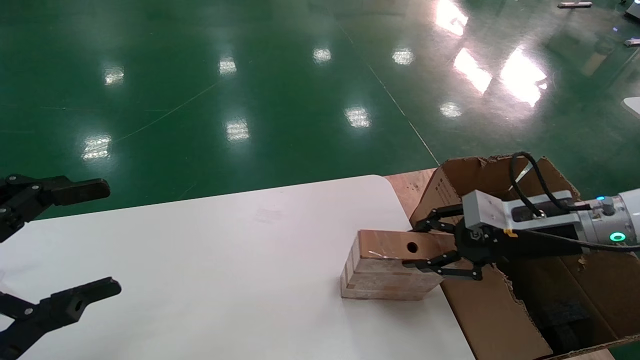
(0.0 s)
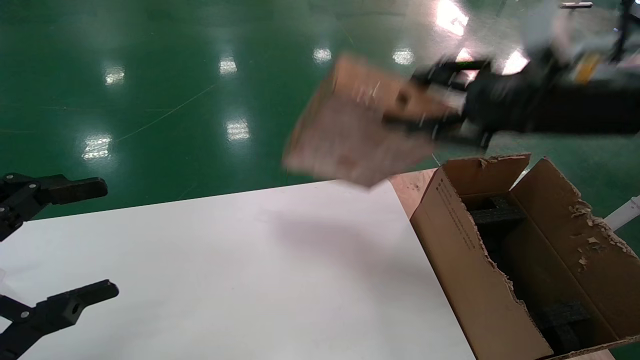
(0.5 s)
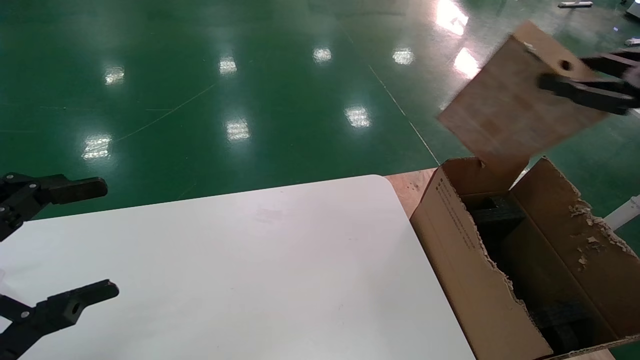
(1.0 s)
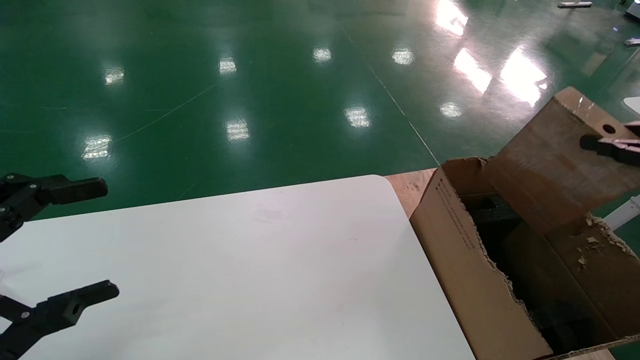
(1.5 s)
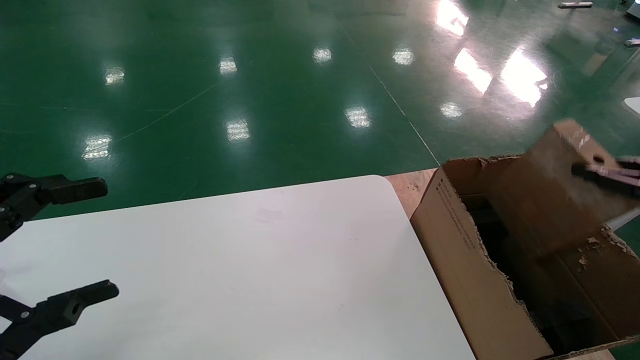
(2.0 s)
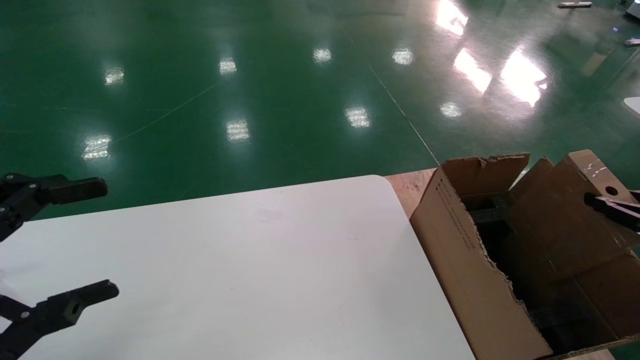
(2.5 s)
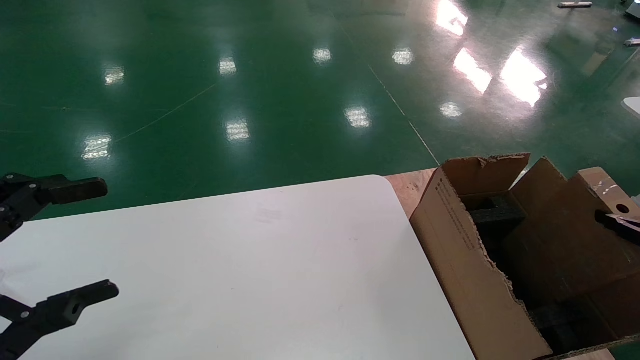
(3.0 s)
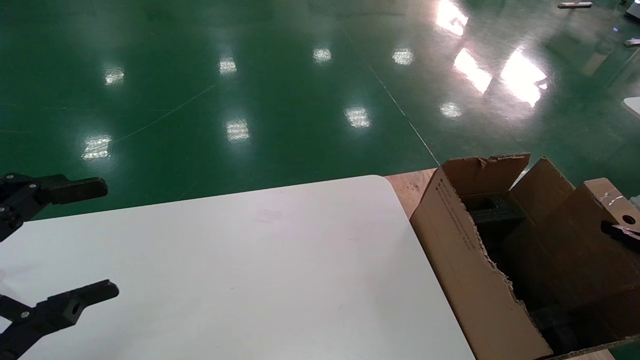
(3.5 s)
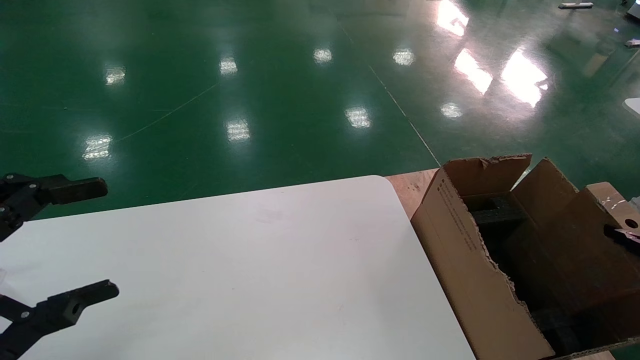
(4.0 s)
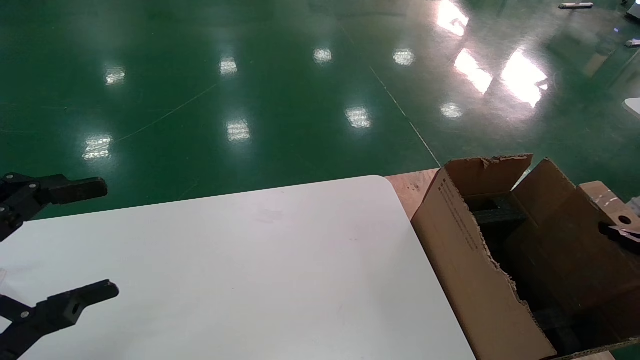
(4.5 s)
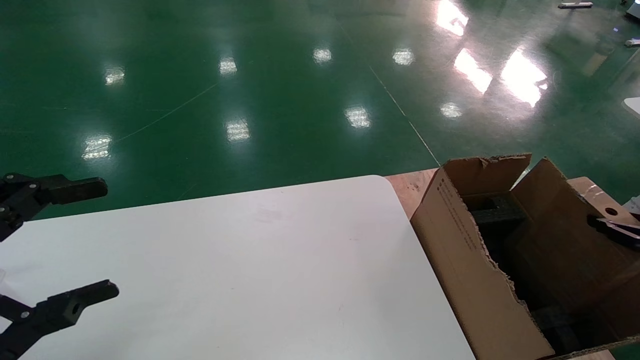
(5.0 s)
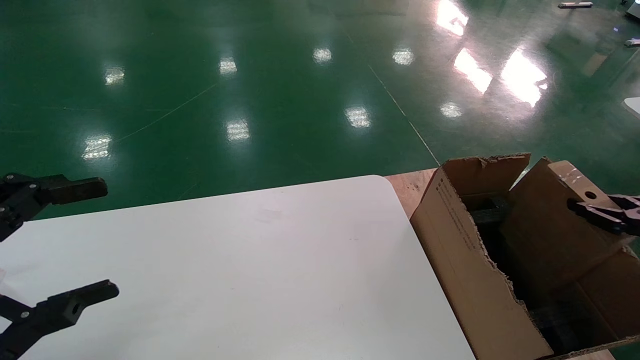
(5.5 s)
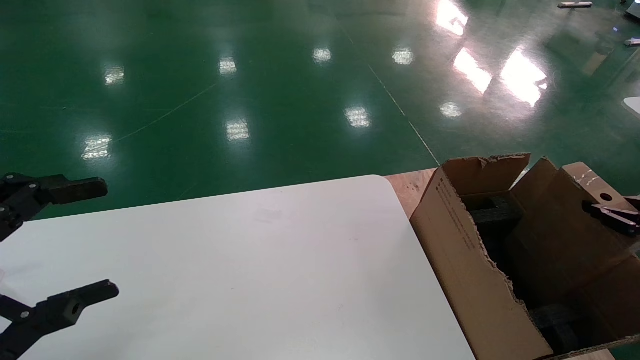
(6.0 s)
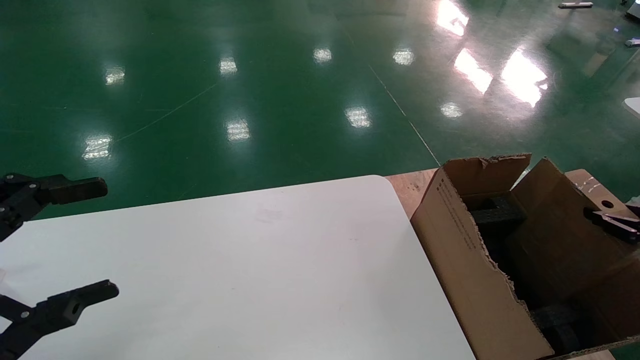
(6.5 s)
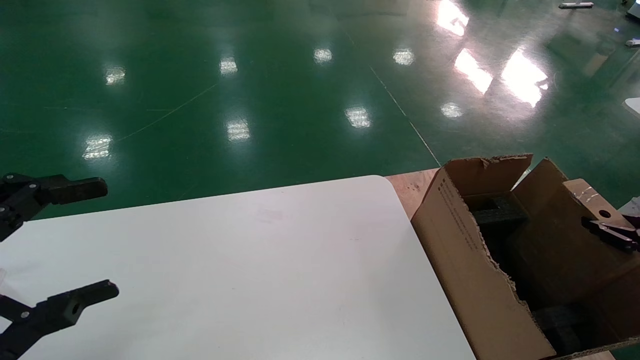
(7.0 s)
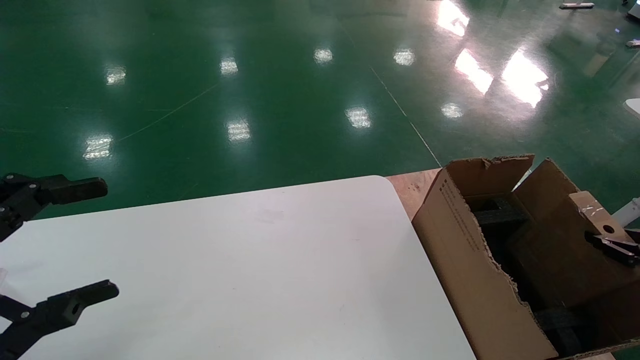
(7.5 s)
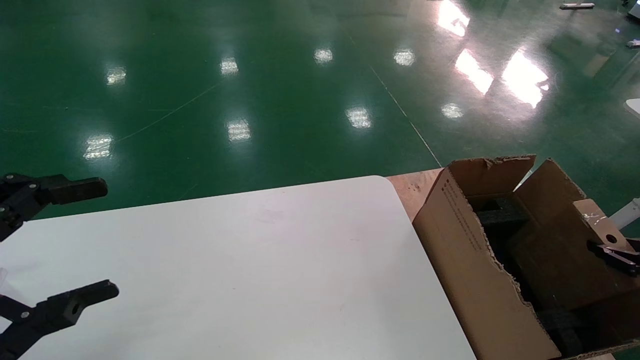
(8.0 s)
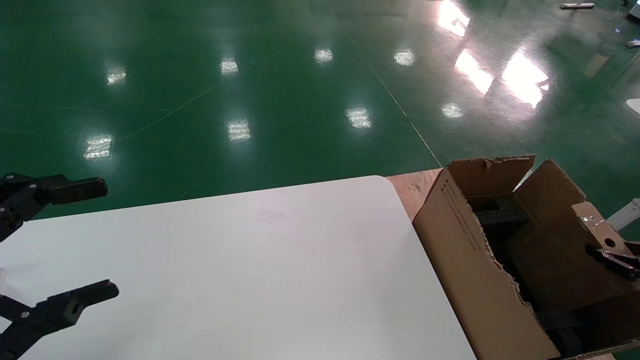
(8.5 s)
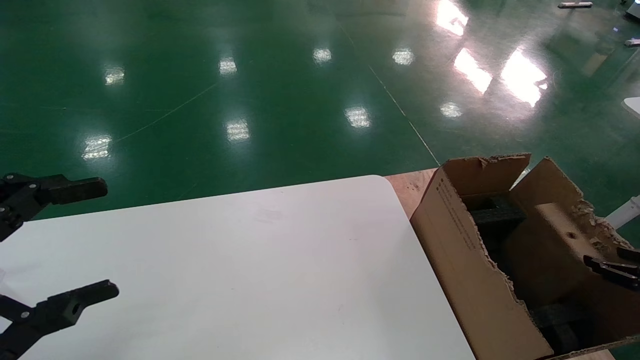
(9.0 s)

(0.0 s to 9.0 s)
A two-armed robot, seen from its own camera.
Task of the whole recording: put the box on the table into the big box.
0.0 s - 2.0 s: The right gripper goes some 20 cm to the right and backward.
2.0 s - 4.5 s: The right gripper moves downward, approximately 10 cm.
7.0 s - 9.0 s: The grippers move only a little.

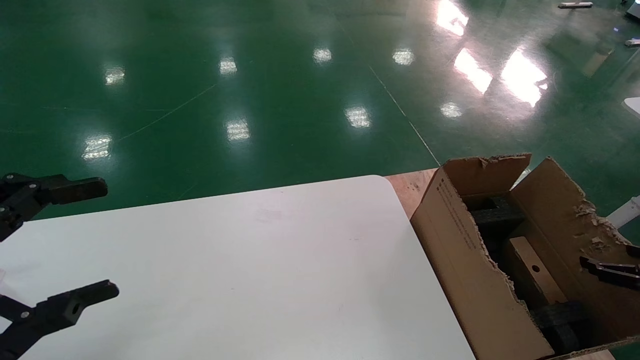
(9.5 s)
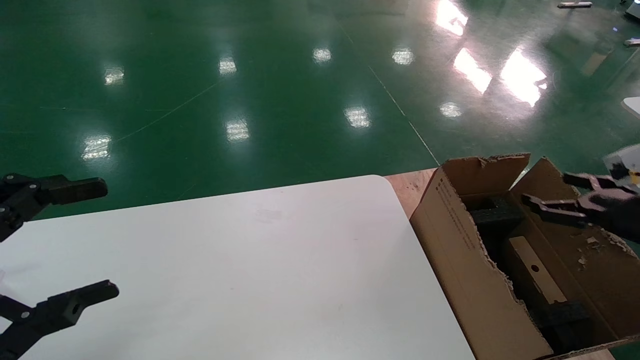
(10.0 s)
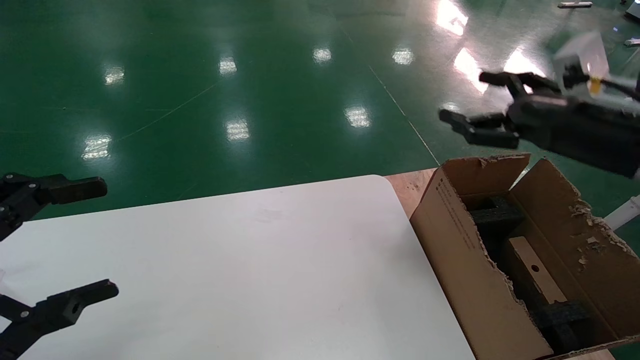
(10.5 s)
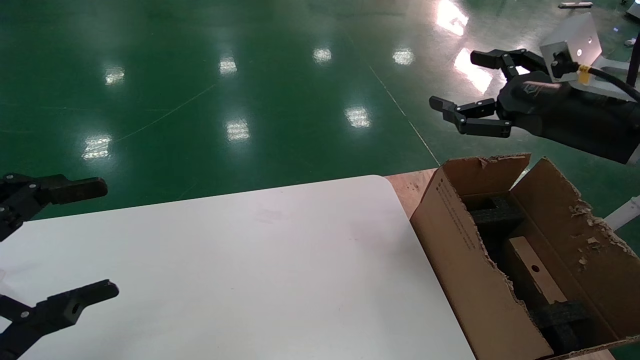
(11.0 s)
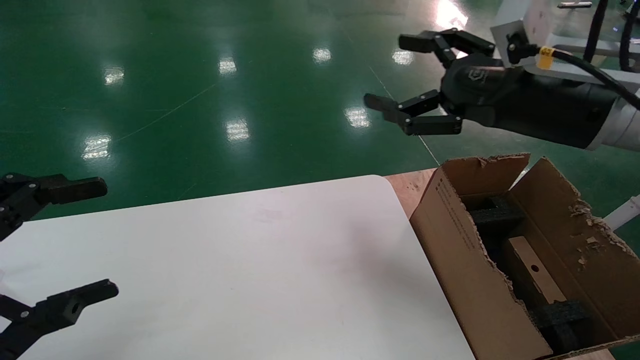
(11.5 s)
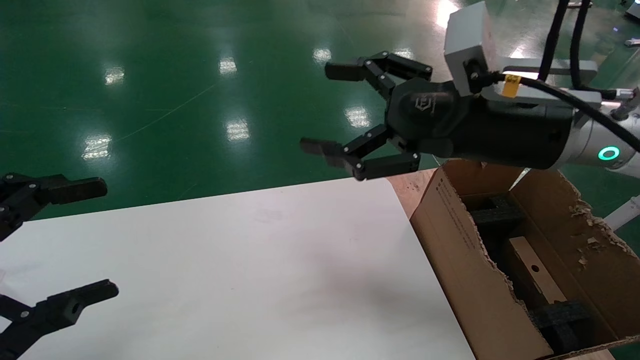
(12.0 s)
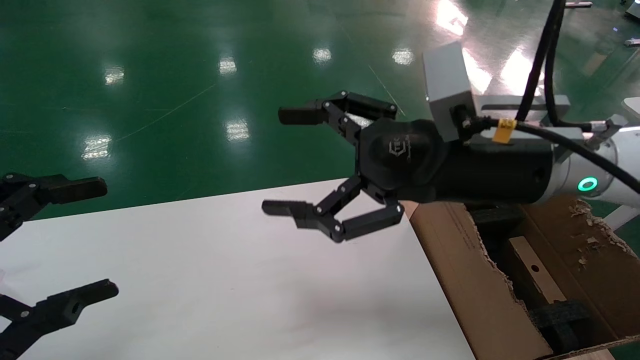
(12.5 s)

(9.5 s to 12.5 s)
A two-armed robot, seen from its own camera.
Task of the whole recording: put the box on the table into the big box.
9.5 s - 11.0 s: The right gripper is displaced upward and to the left by some 30 cm.
11.0 s - 12.5 s: The right gripper travels to the left by some 15 cm.
